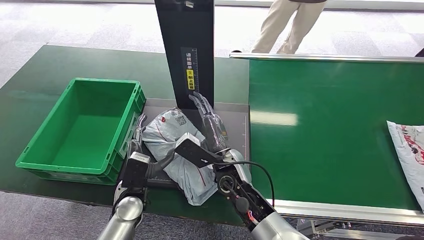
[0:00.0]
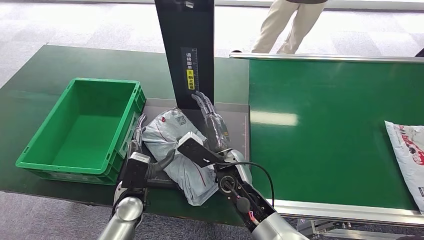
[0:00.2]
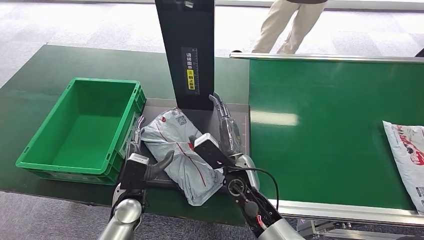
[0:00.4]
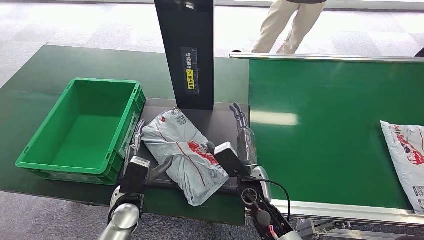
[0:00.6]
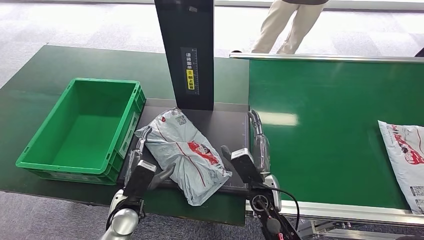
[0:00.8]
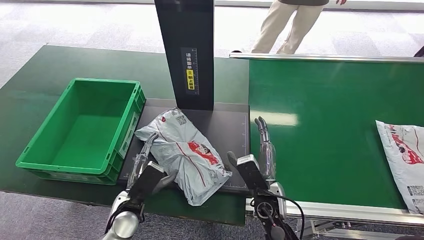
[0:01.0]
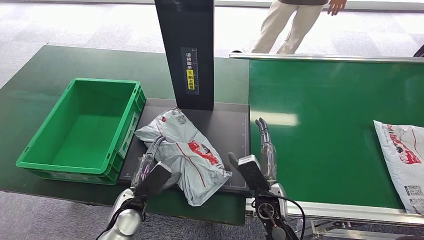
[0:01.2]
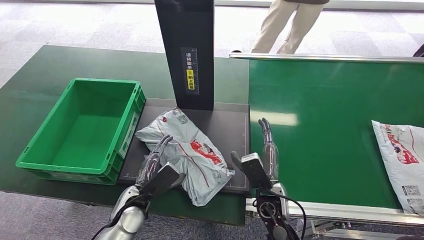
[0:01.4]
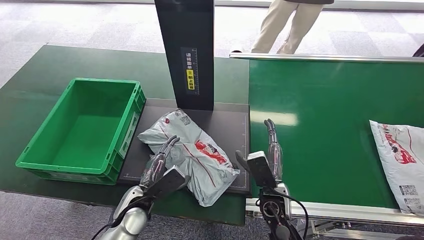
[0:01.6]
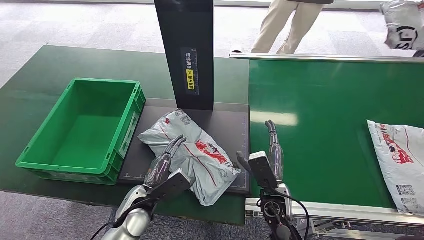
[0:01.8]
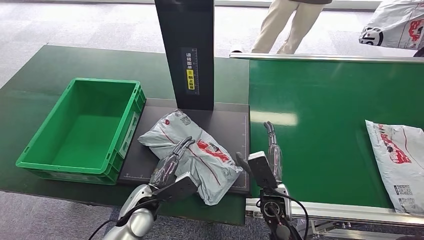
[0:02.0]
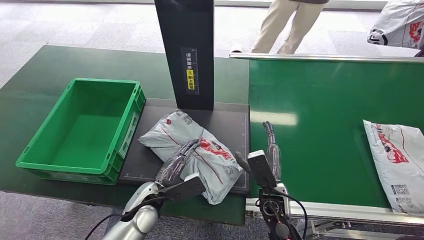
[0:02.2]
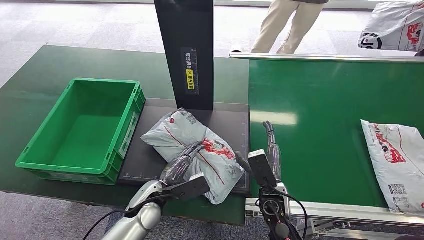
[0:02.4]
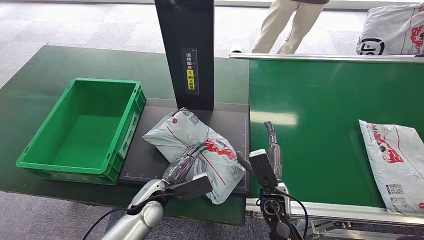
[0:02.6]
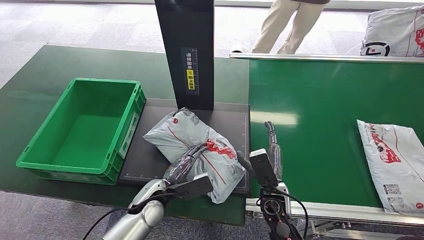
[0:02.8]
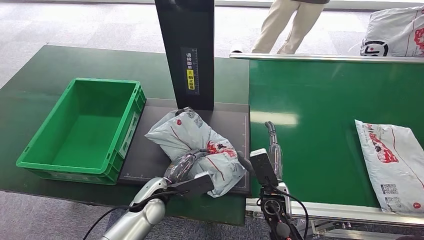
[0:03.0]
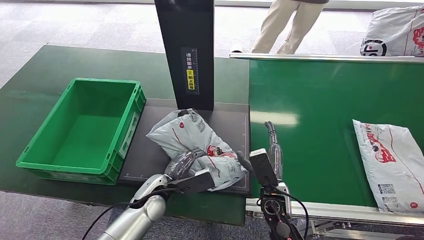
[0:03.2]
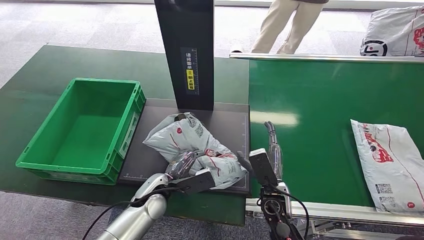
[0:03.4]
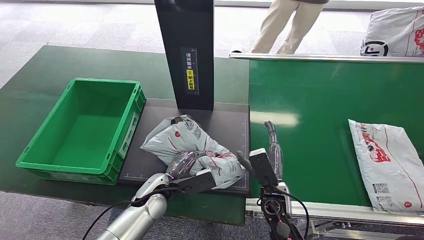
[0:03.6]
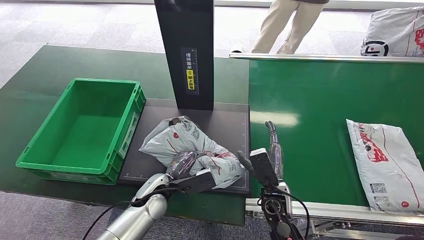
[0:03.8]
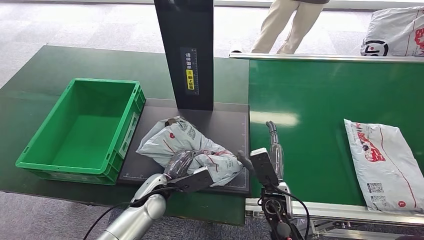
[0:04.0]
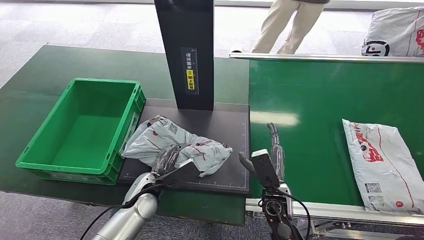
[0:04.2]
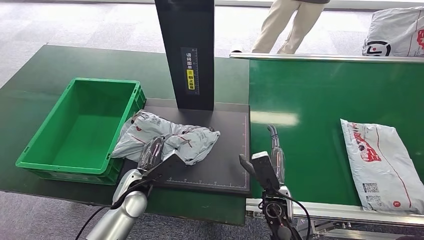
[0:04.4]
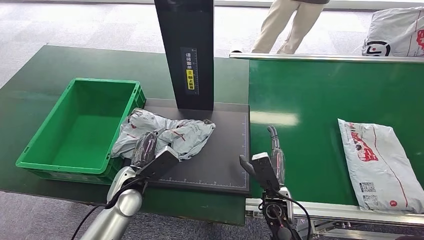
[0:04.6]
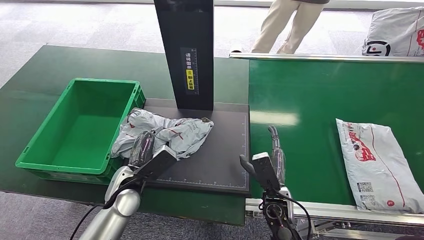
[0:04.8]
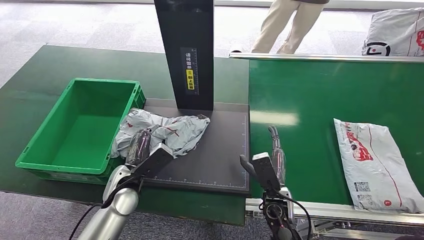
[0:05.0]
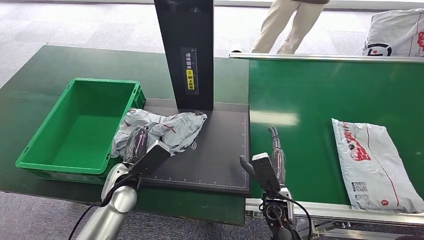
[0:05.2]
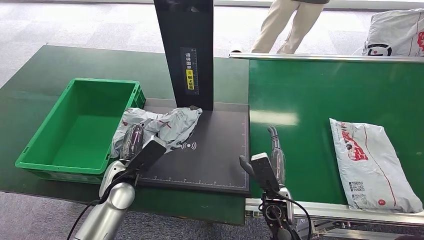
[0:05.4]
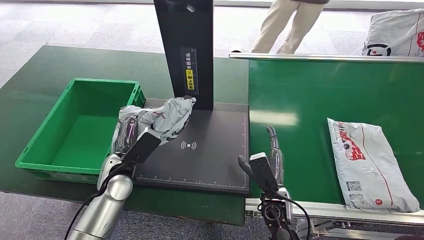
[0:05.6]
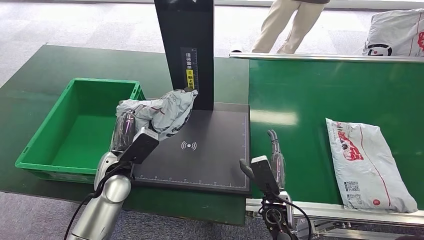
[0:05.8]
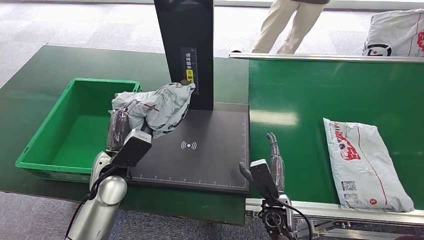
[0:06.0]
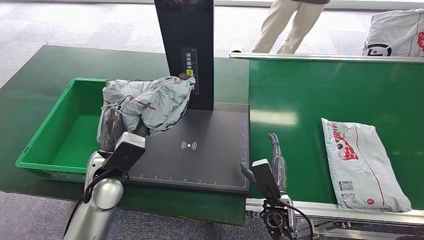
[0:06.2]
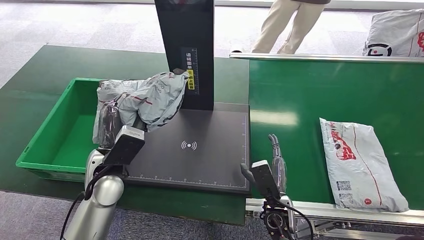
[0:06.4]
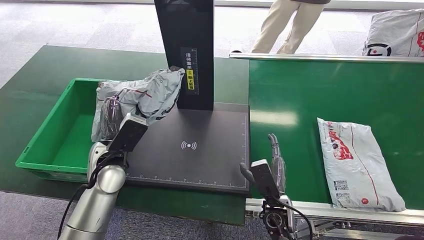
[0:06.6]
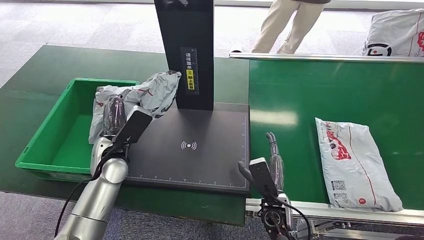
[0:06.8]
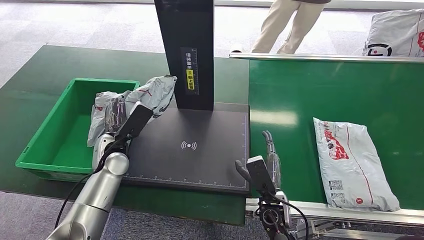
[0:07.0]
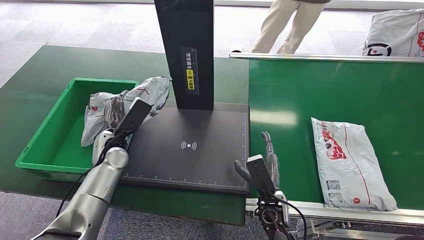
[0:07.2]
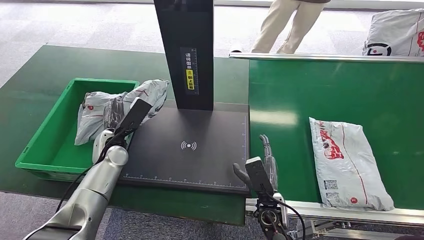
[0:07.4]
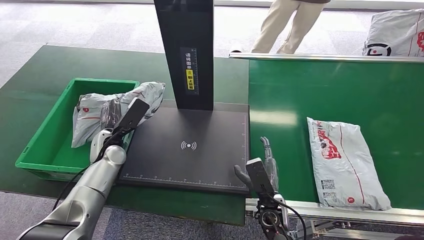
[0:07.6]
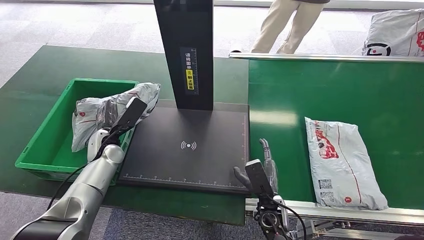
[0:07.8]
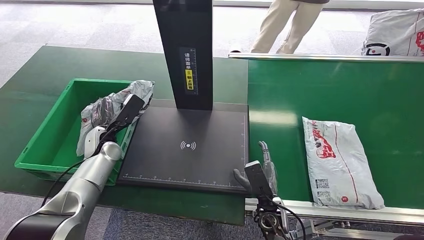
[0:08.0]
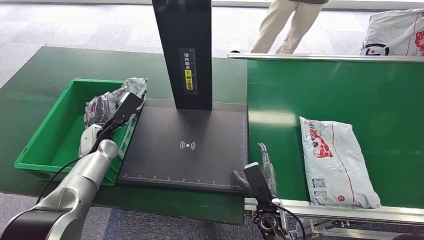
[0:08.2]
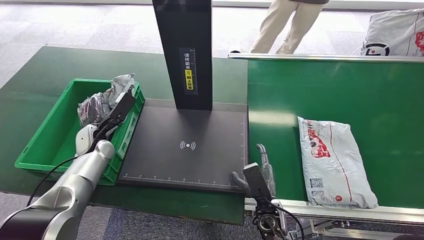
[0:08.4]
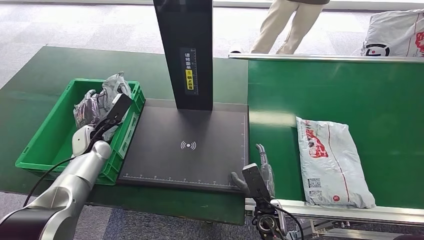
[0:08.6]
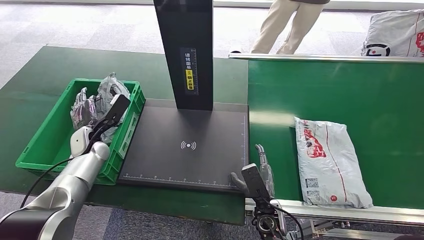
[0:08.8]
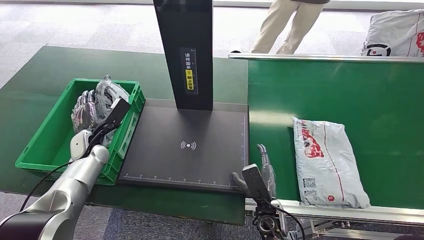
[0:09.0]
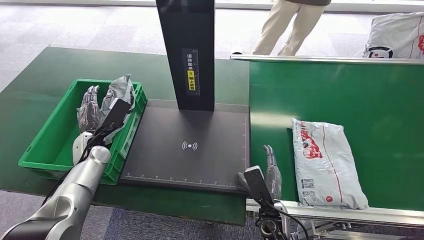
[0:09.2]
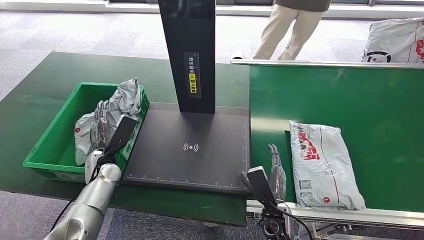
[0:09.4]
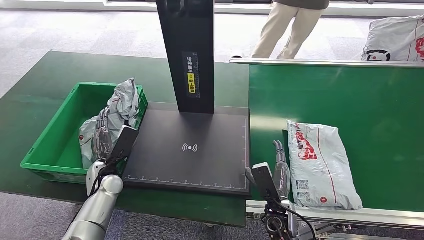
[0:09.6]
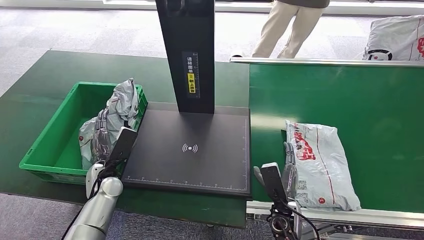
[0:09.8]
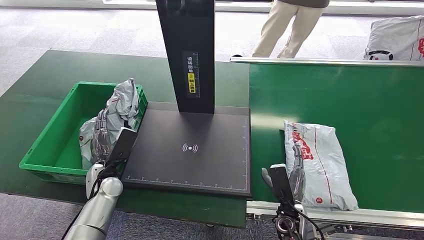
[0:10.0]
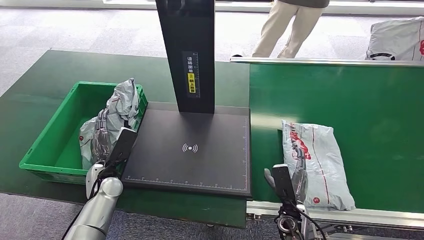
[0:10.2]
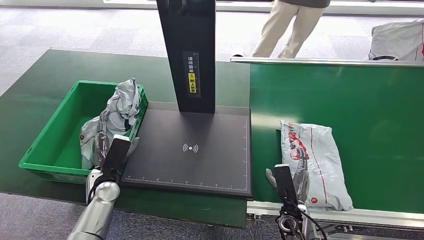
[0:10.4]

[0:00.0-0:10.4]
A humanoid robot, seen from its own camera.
Step, 0:01.4 to 0:06.4: Pick up the package from the inbound machine.
Step, 0:06.6 to 0:10.4: Place the package into the parcel locker.
0:00.0 to 0:01.4: The right hand heads to the right and downward, covering roughly 15 cm.
0:04.4 to 0:06.0: The left hand moves upward, some 10 cm.
0:06.0 to 0:07.4: The left hand travels forward and to the left by roughly 10 cm.
